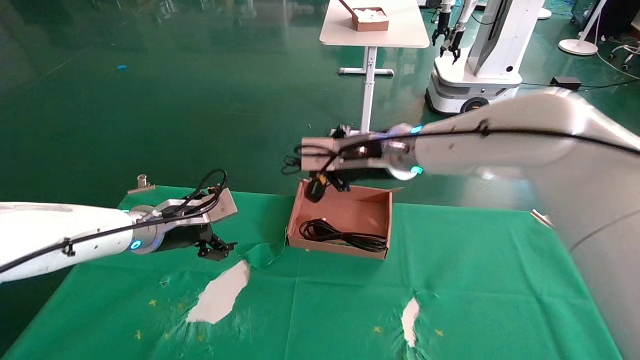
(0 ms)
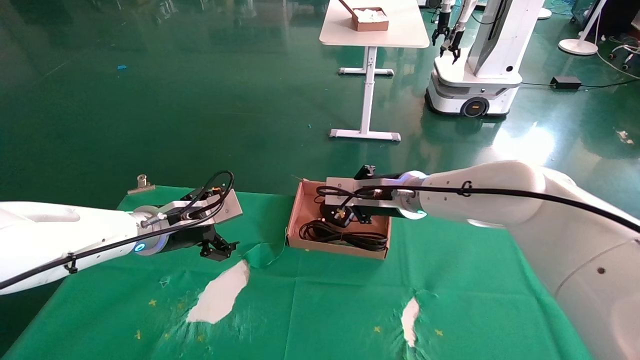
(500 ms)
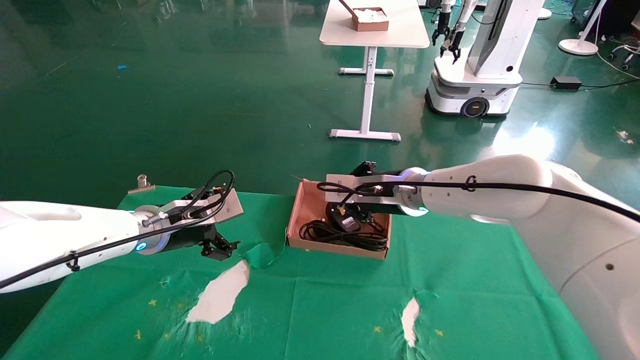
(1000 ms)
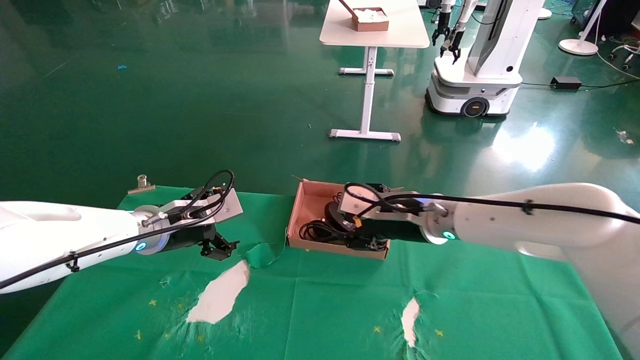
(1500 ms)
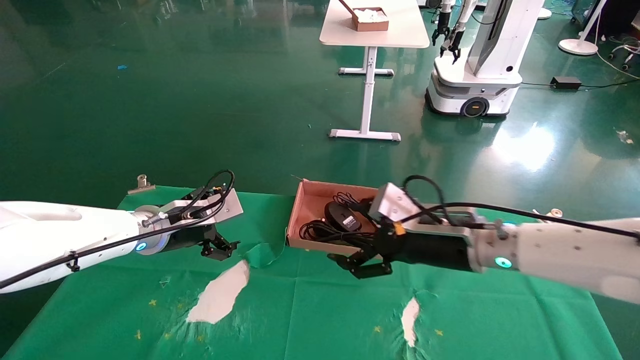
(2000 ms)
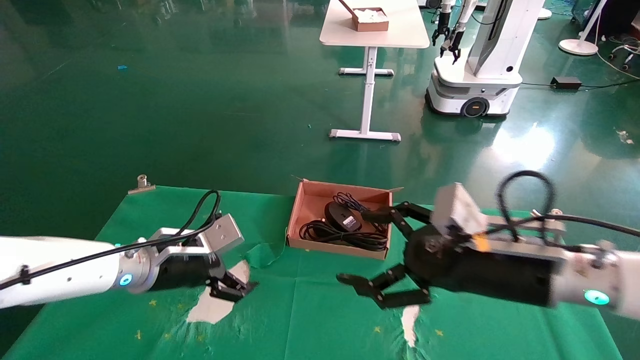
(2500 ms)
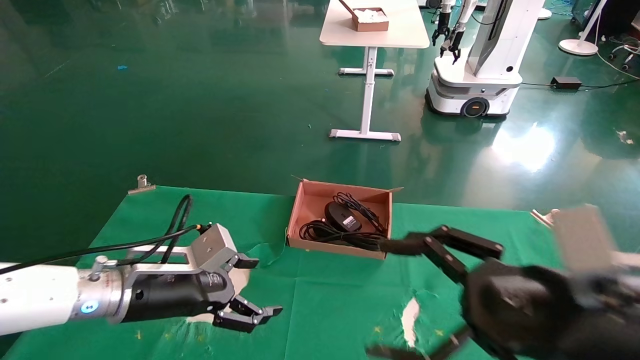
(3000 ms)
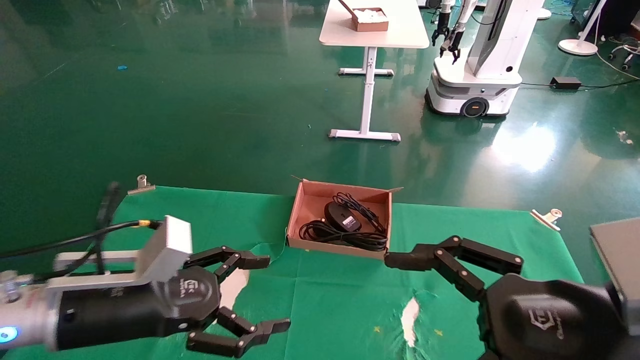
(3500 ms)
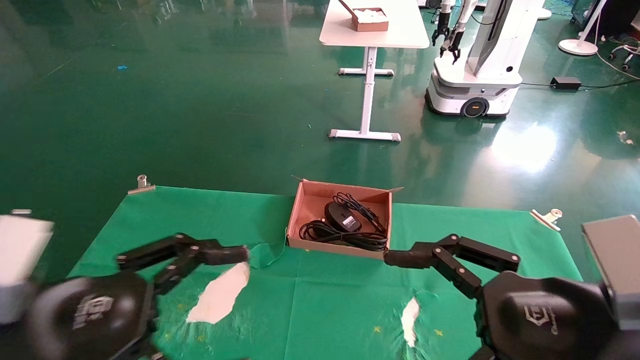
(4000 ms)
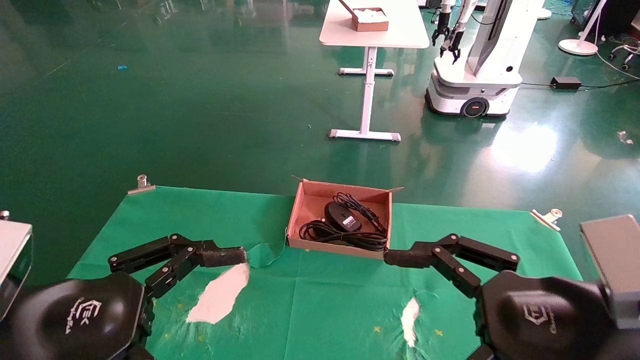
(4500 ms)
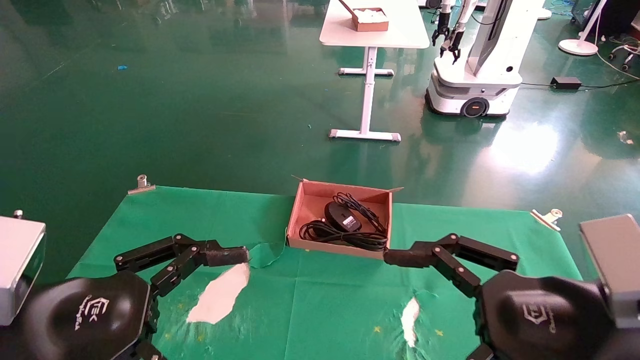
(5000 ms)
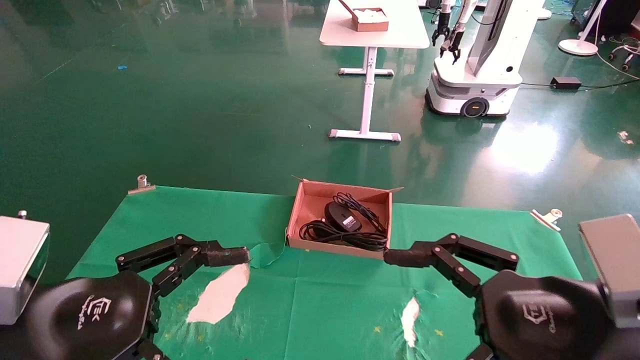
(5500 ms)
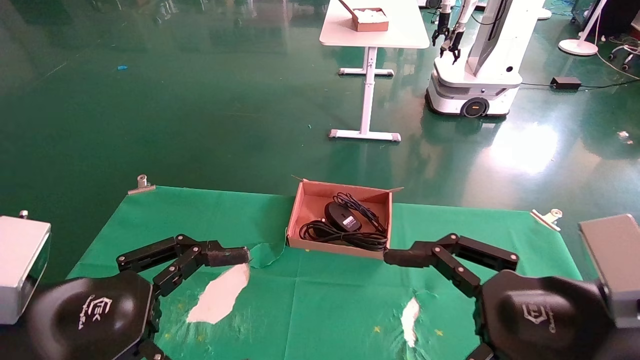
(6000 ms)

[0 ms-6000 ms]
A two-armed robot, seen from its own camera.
0 ms to 2000 ms: The right gripper heads downward, to the right and backward, covering about 15 cm, and opens up.
2000 ms to 4000 ms: The two grippers go some 20 cm backward.
4000 ms to 6000 ms: The grippers make only small movements.

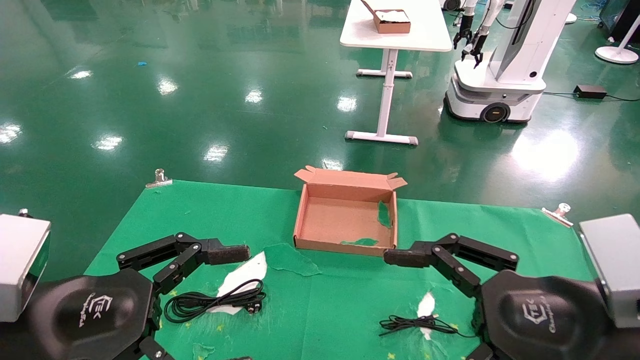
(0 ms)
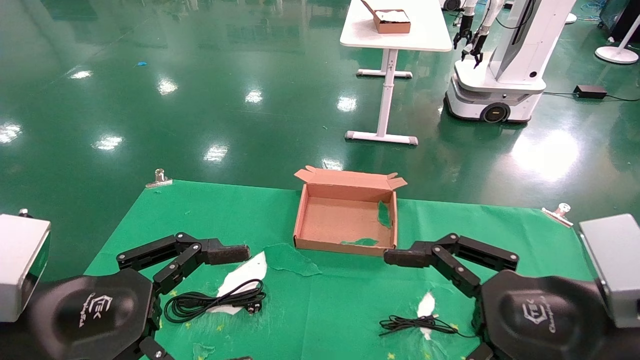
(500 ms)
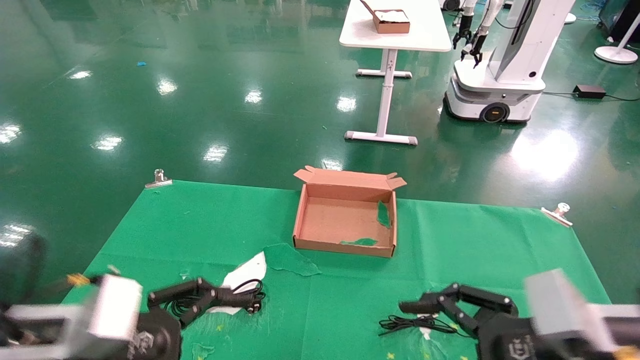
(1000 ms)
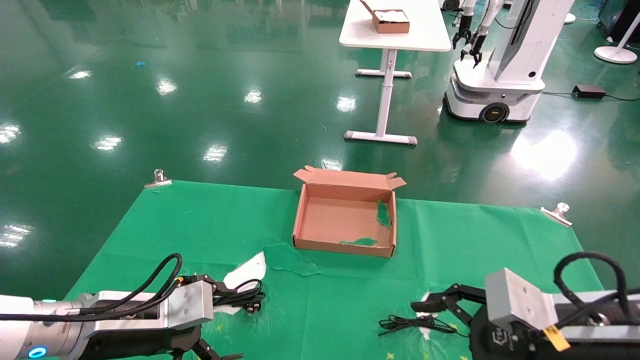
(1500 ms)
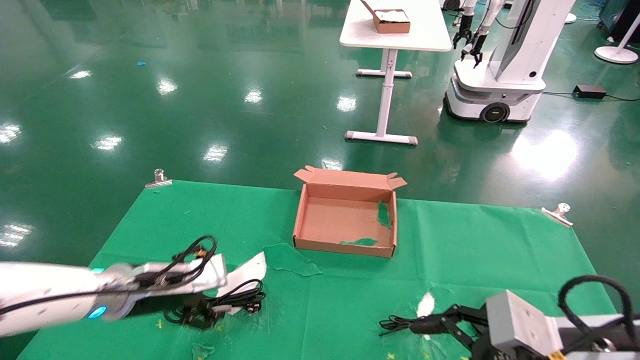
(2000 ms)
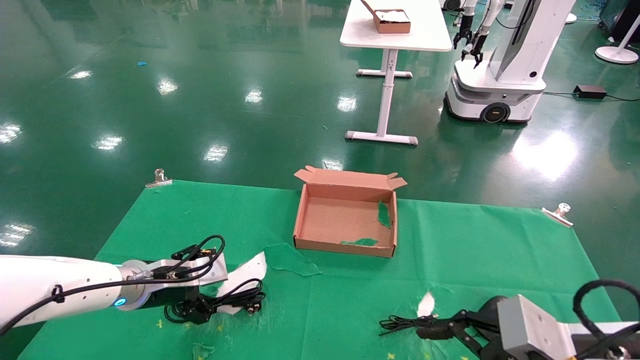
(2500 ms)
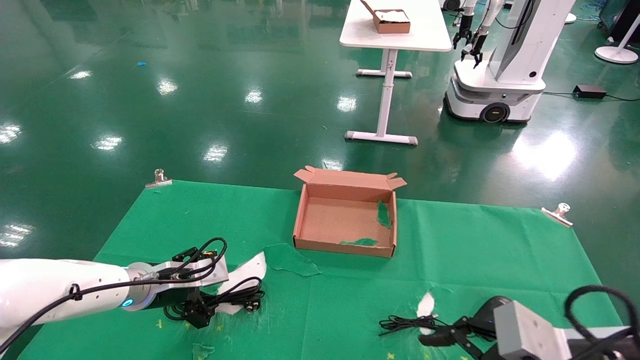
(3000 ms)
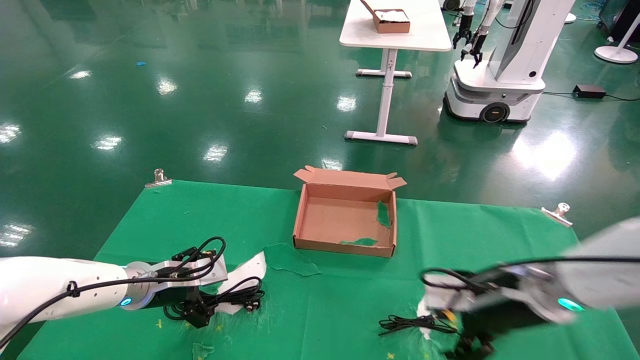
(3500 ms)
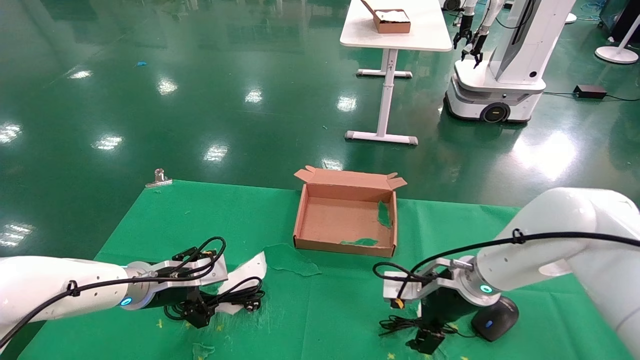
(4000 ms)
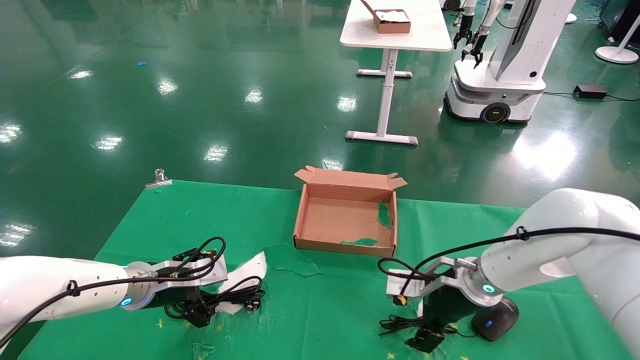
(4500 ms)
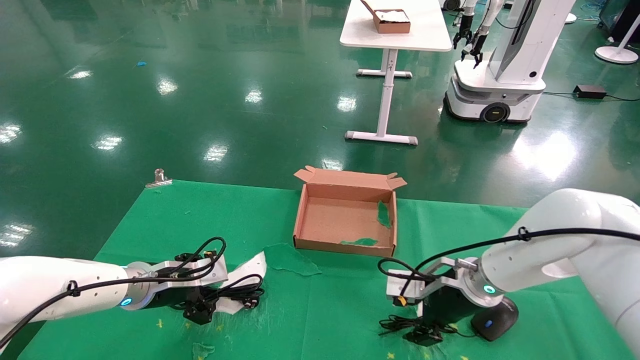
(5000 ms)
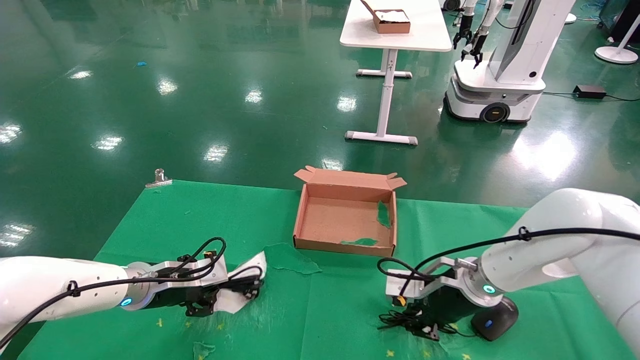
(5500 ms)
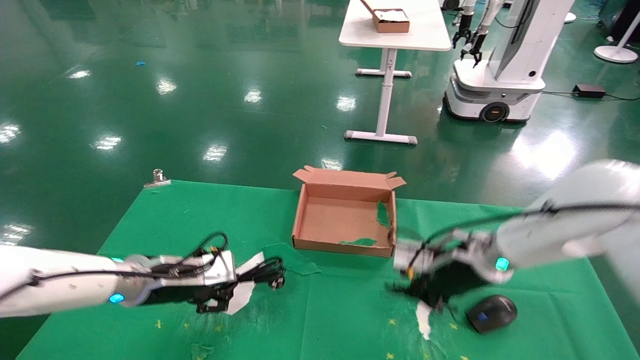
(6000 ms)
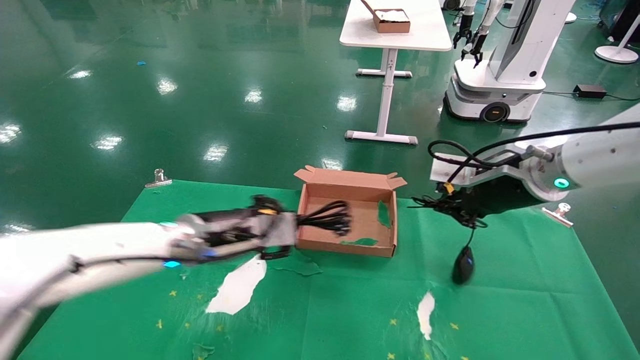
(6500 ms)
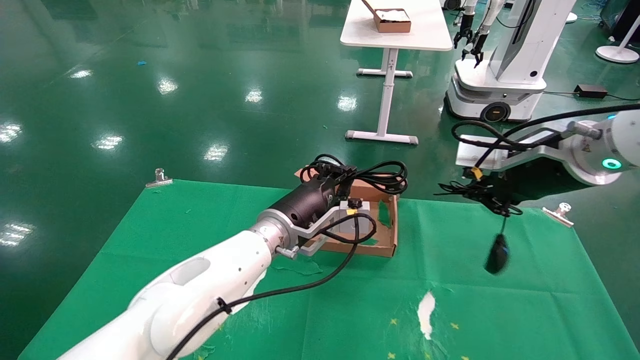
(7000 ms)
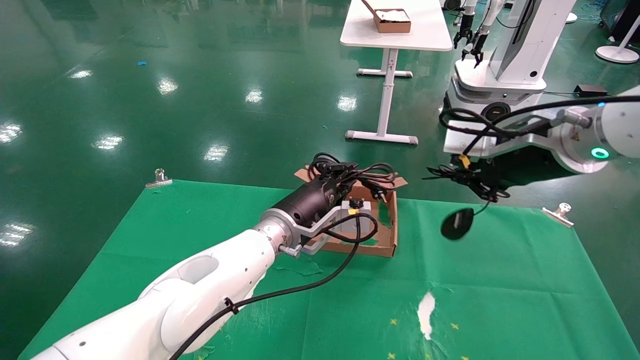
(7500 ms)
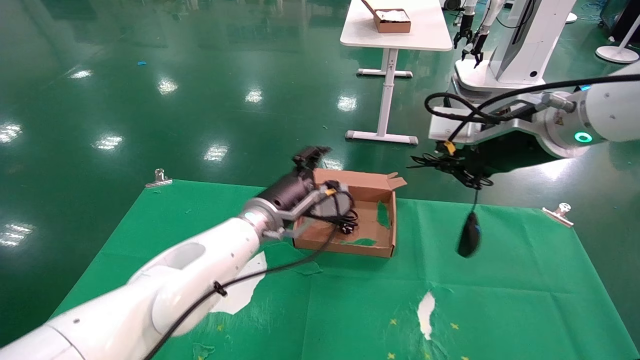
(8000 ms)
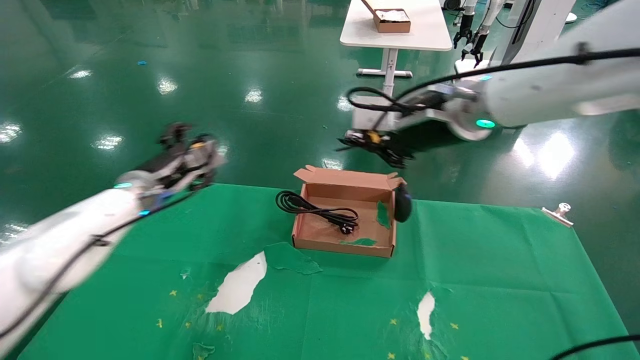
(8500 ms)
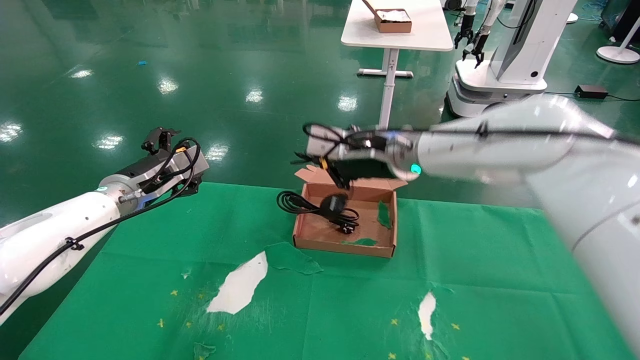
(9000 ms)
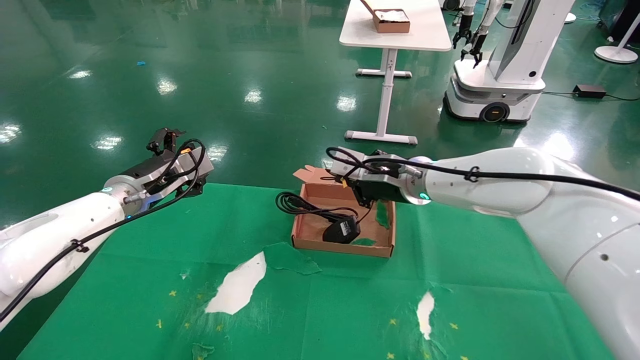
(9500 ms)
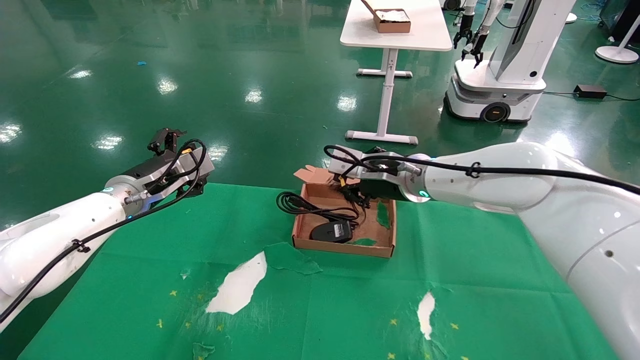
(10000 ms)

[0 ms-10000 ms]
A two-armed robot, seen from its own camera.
Step, 1500 ms to 6000 ms: Grab and lift both the mouse and power cord from the accessory packaging area at the same time.
Step, 6500 ms to 9500 ms: Place the mouse and power cord into the box.
0 ms to 2000 ms: The right gripper travels downward by about 5 cm, while the left gripper shifts some 20 cm forward and downward.
2000 ms to 4000 ms: The left gripper shifts about 5 cm forward; the right gripper heads forward, covering some 20 cm.
4000 ms to 6000 ms: The right gripper shifts approximately 5 cm upward, and closes its fingers. The left gripper ends up approximately 5 cm from where it was, and closes up.
6000 ms to 8000 ms: The left gripper goes about 20 cm to the right and forward, and opens; the right gripper travels upward by about 20 cm.
8000 ms to 10000 ms: The right gripper goes about 20 cm forward, to the left and downward; the left gripper goes some 20 cm to the left, and opens its fingers.

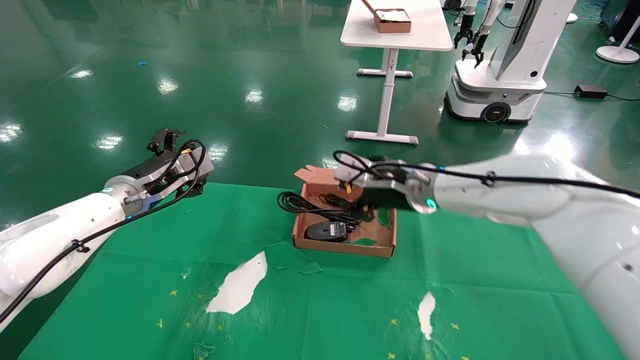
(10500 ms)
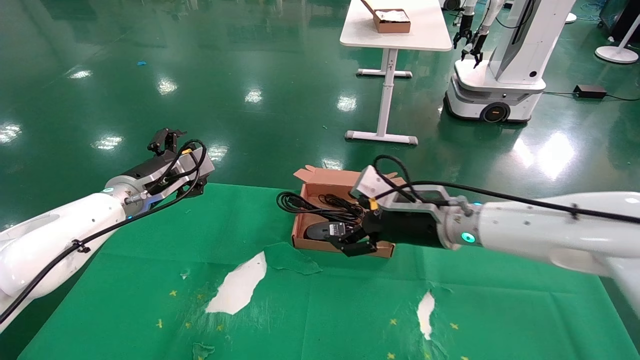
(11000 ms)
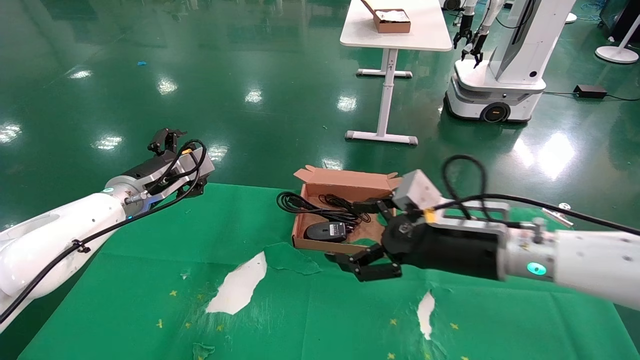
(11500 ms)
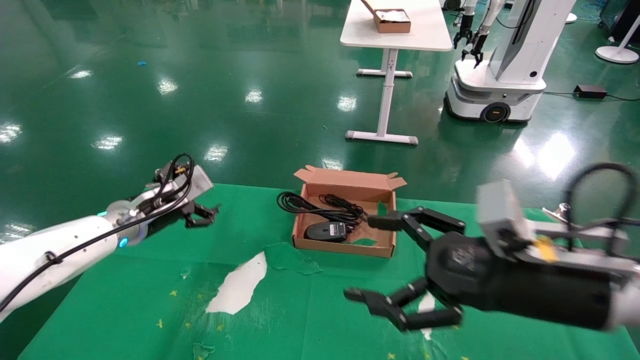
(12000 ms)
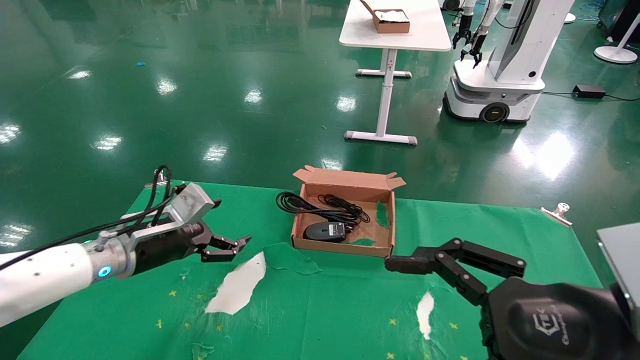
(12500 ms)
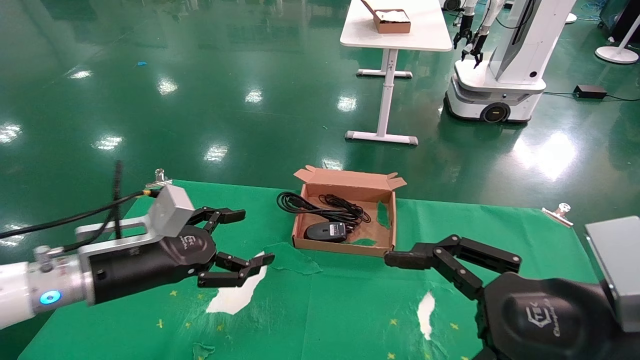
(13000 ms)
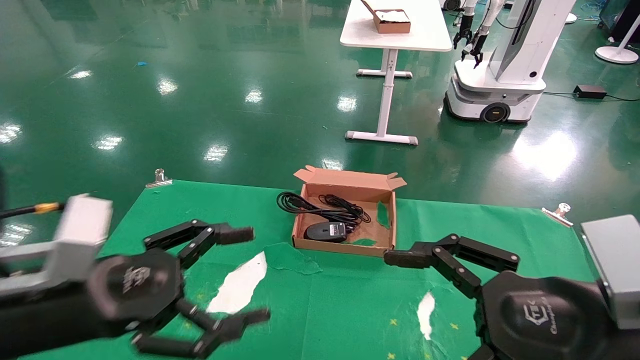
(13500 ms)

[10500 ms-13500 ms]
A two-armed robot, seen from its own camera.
10500 ms to 12000 ms: The right gripper heads backward and to the right, covering approximately 25 cm, and opens its fingers.
12000 ms to 13500 ms: The right gripper heads backward, covering approximately 5 cm; the left gripper heads backward, covering roughly 25 cm.
